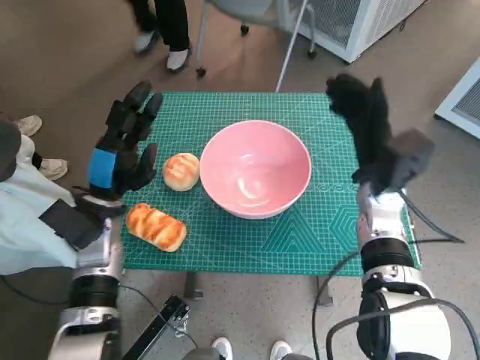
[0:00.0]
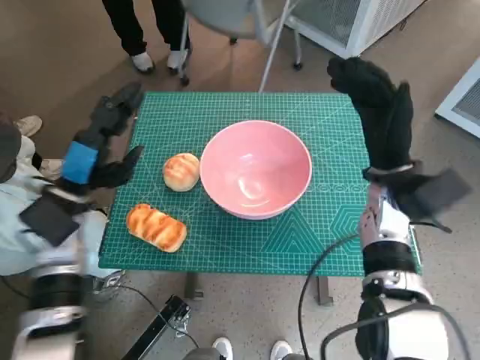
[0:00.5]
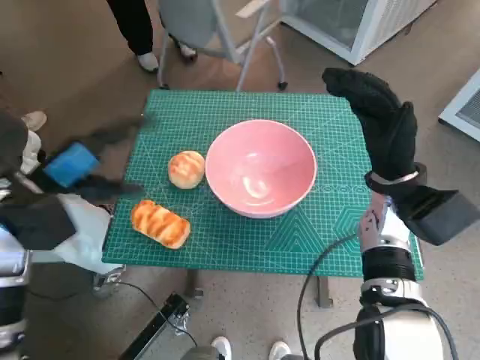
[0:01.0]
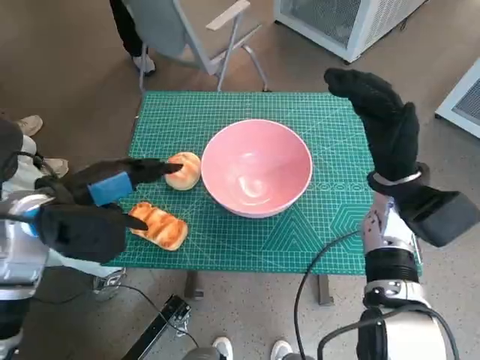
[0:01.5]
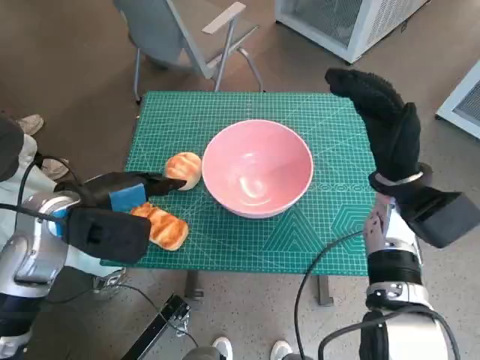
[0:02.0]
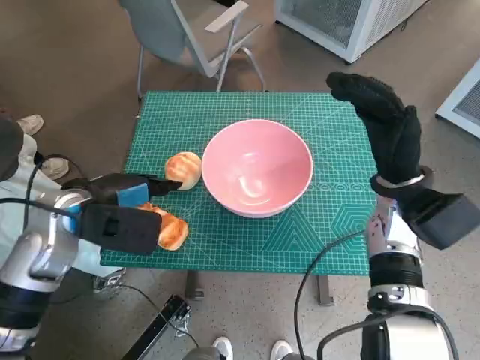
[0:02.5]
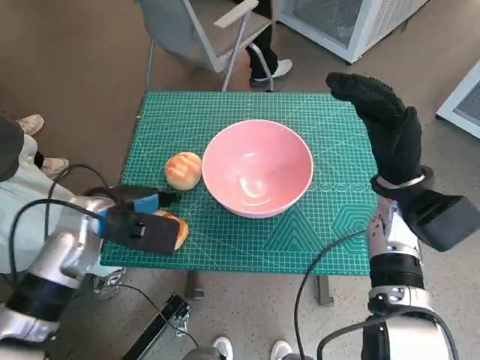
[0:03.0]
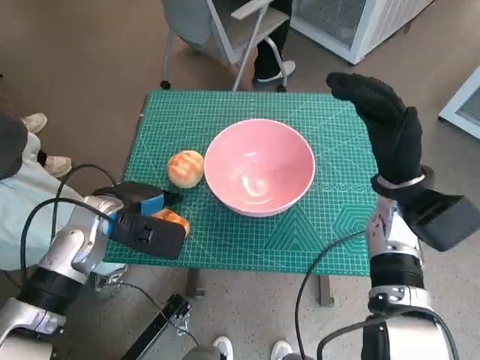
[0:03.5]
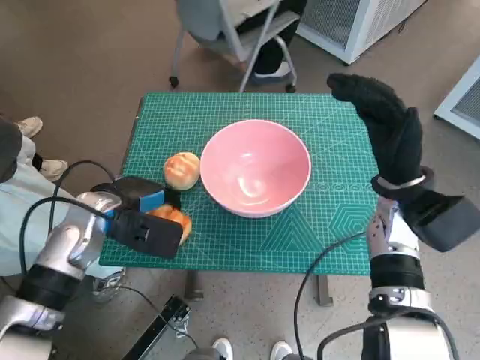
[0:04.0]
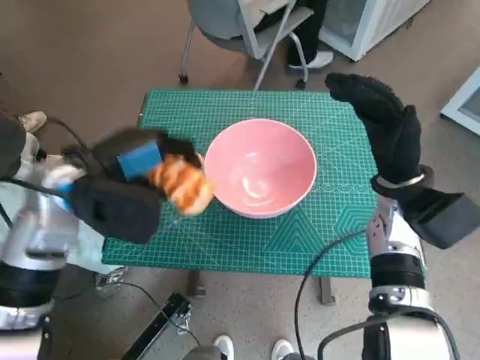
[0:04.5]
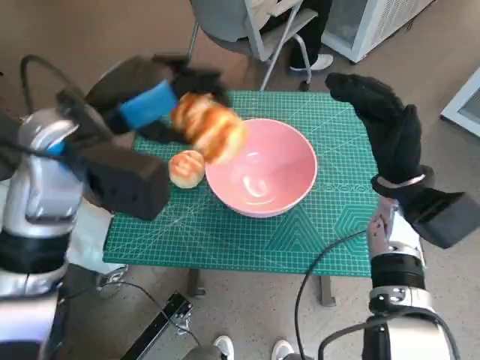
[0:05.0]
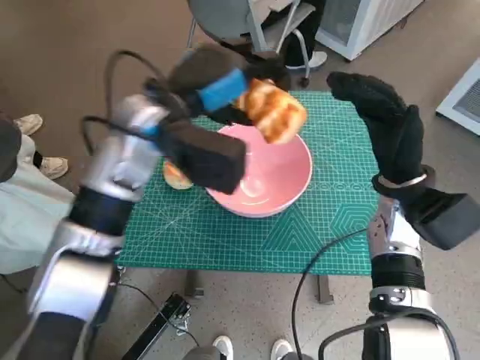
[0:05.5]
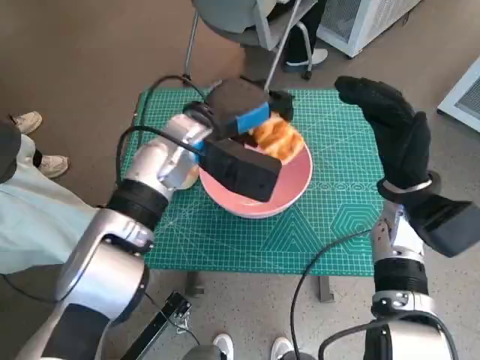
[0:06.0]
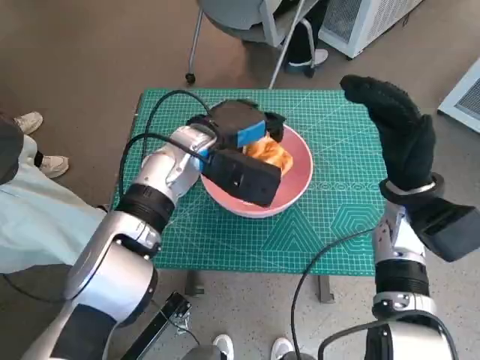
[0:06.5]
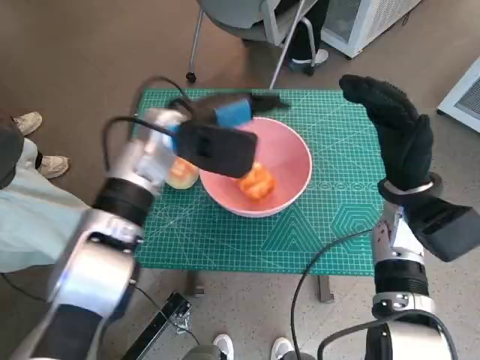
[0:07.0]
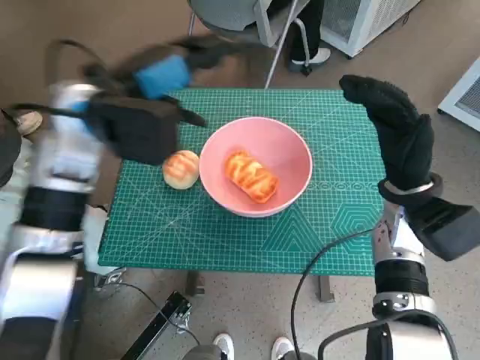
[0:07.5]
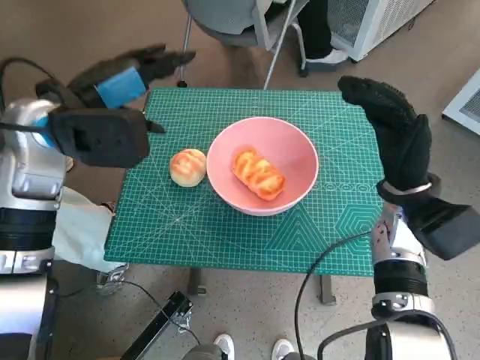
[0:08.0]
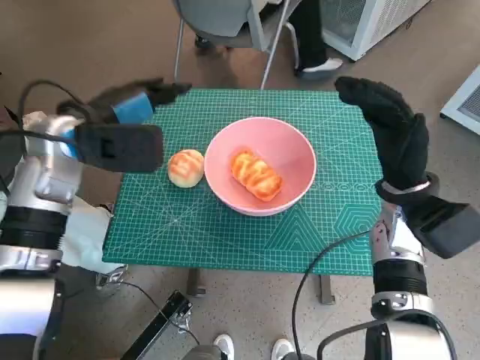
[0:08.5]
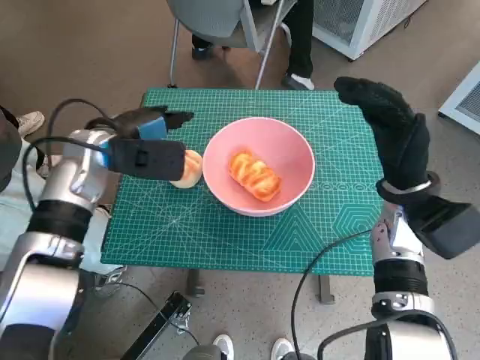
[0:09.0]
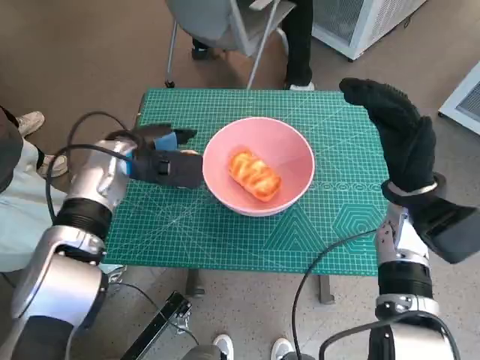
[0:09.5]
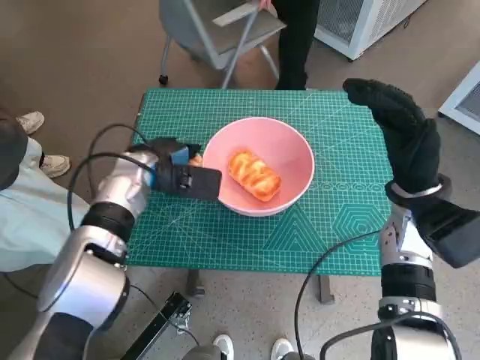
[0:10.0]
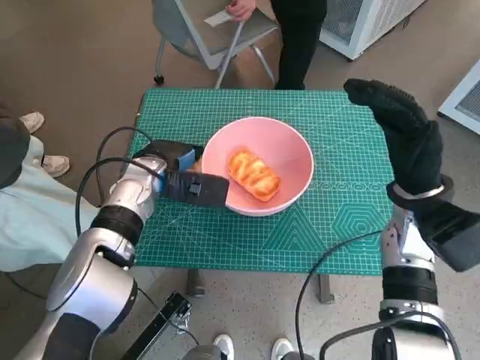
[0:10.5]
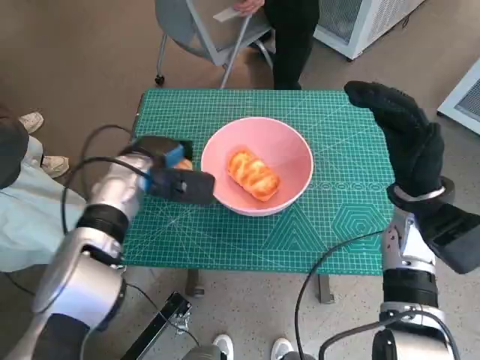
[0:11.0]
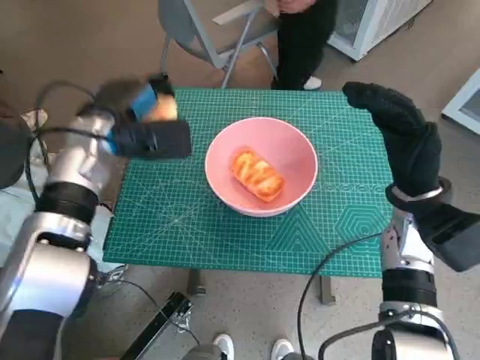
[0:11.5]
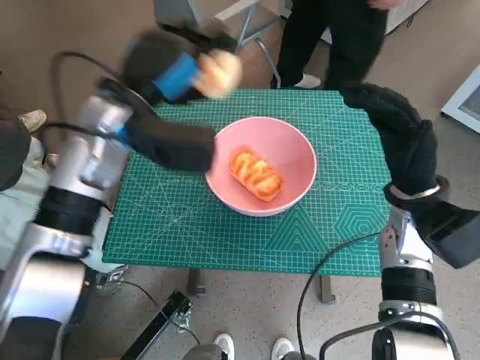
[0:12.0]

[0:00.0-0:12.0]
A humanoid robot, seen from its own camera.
Task of the whole recording: Push the bowl to the center of the table and put the bread into the bowl.
Step, 0:00.0 to 0:03.5: Grasp the long bread with left hand.
Step, 0:04.5 to 0:06.5: Place the long bread in pink bowl with left hand.
Step, 0:07.0 to 0:10.5: Grasp the round bread with left hand.
0:00.0 to 0:02.0: The left hand goes some 5 cm upward.
0:02.0 to 0:04.0: The left hand is displaced downward by about 5 cm.
0:04.0 to 0:06.0: The left hand moves to the right, upward and forward, some 15 cm.
0:06.0 to 0:08.0: The left hand heads to the left and upward, covering approximately 15 cm.
0:08.0 to 0:10.0: The left hand travels downward by some 15 cm.
0:10.0 to 0:12.0: The left hand moves upward, some 10 cm.

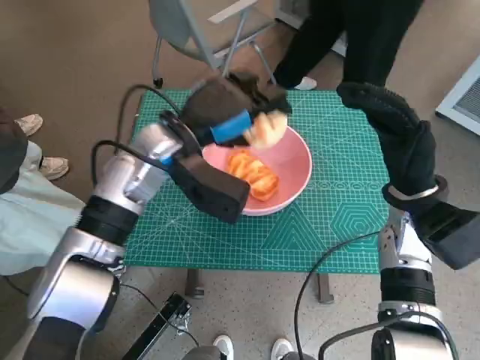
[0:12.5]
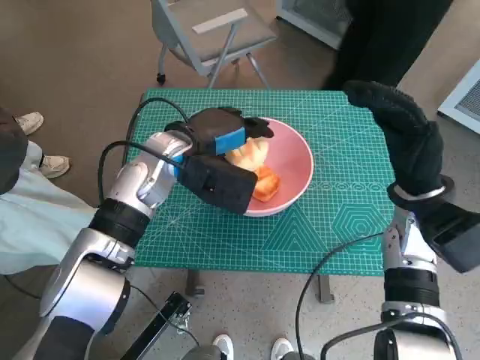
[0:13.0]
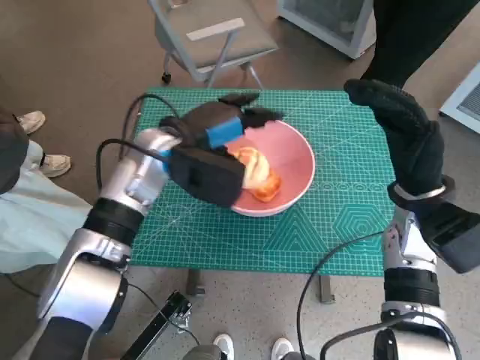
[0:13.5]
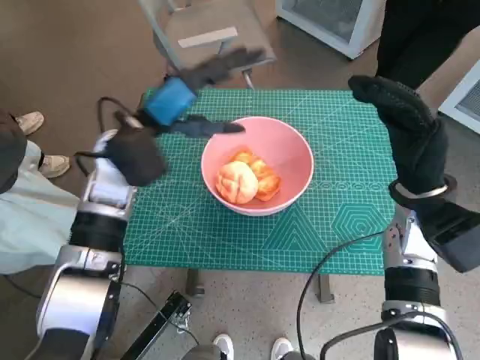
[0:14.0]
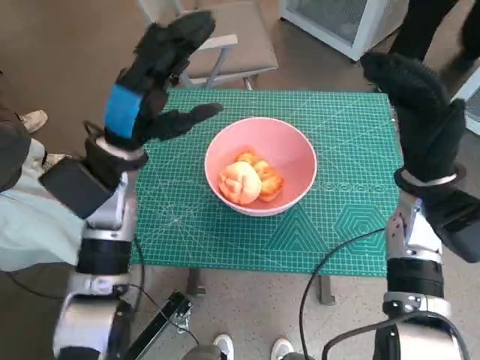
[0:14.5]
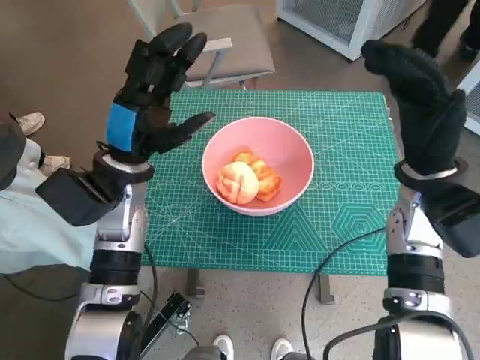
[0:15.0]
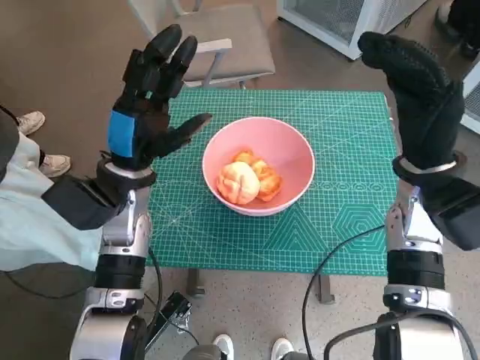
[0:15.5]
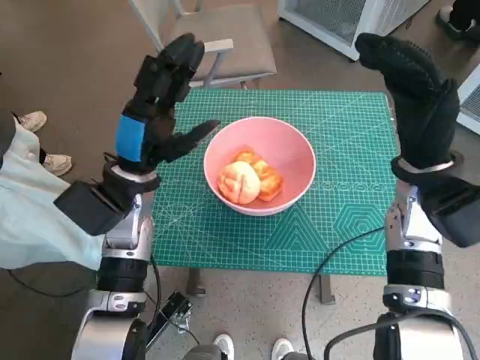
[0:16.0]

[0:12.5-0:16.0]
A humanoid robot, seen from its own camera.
Task of the whole recording: Push the bowl to the center of the table and put the bread into the bowl.
0:12.5 to 0:14.5: The left hand is displaced to the left by some 5 cm.

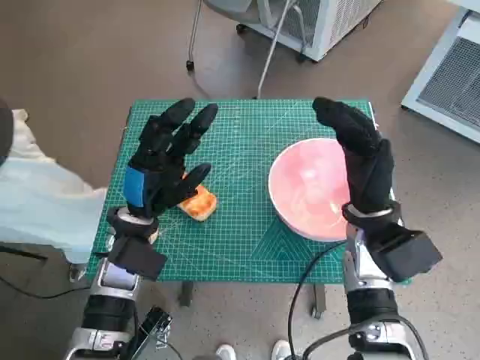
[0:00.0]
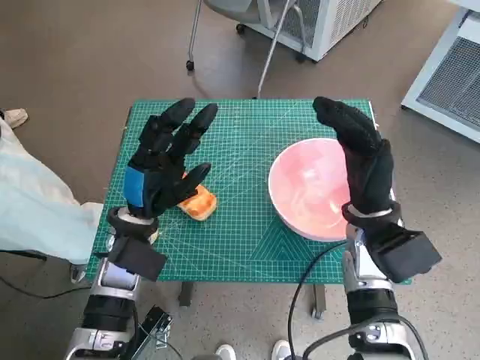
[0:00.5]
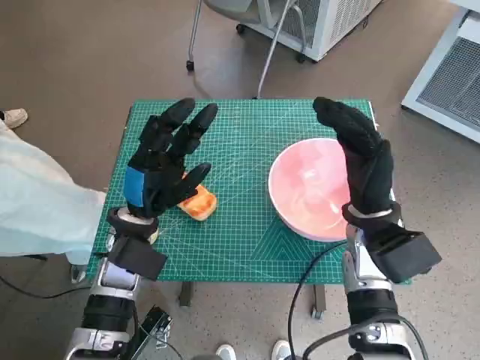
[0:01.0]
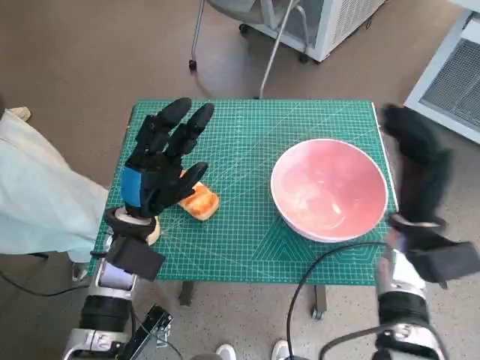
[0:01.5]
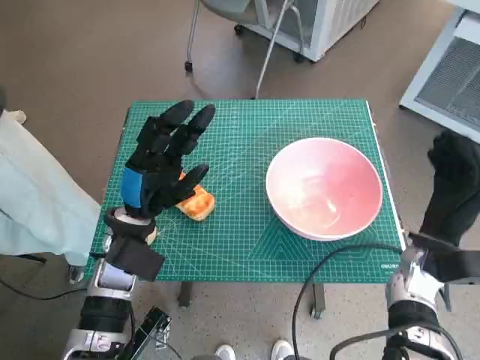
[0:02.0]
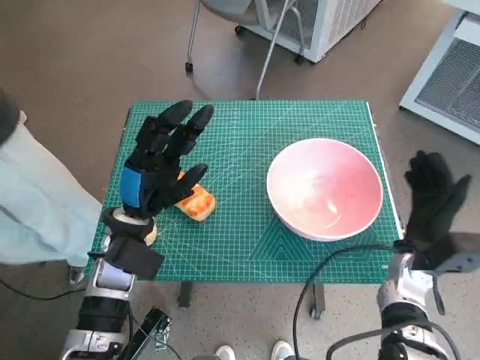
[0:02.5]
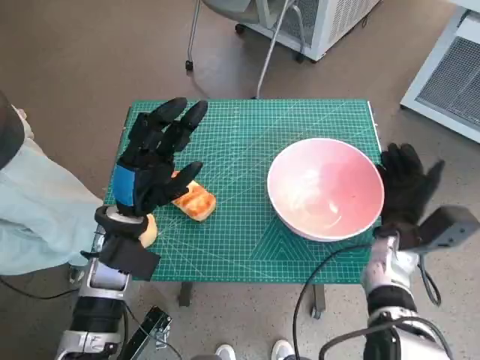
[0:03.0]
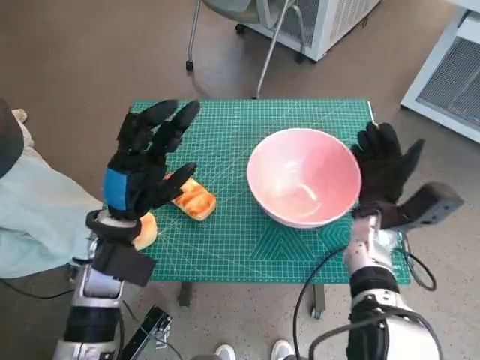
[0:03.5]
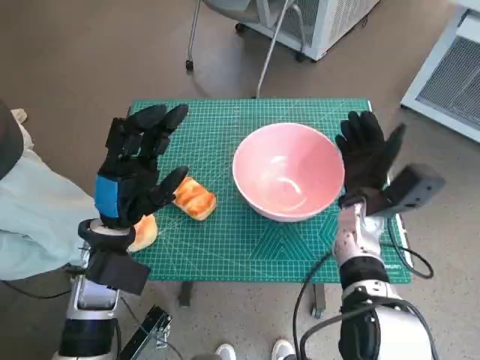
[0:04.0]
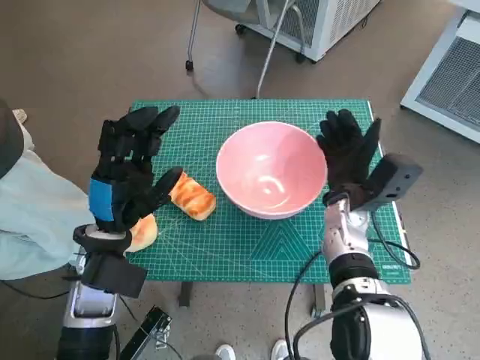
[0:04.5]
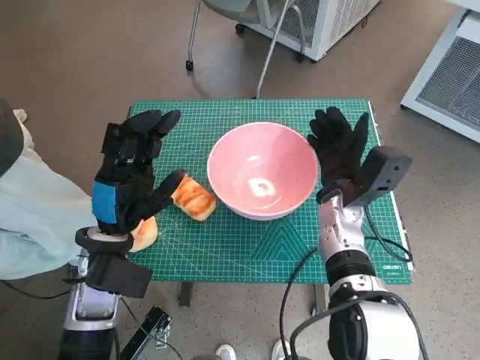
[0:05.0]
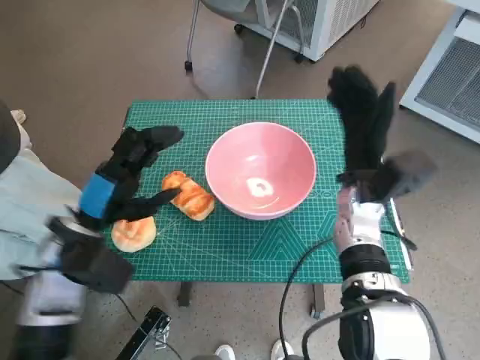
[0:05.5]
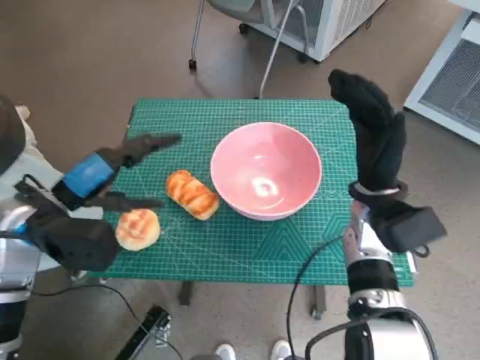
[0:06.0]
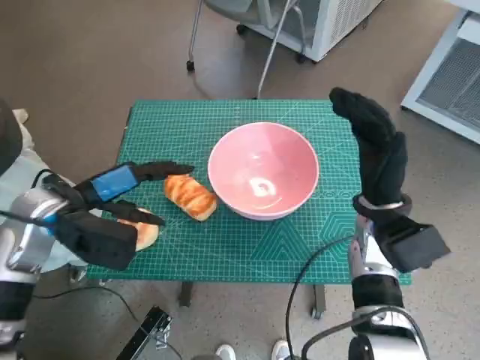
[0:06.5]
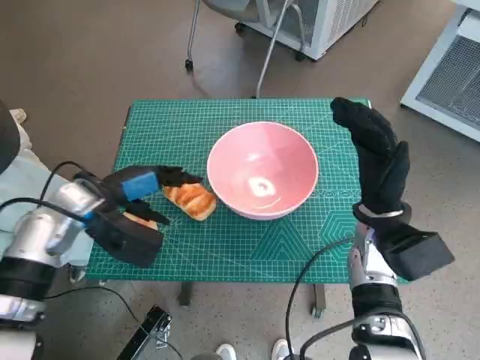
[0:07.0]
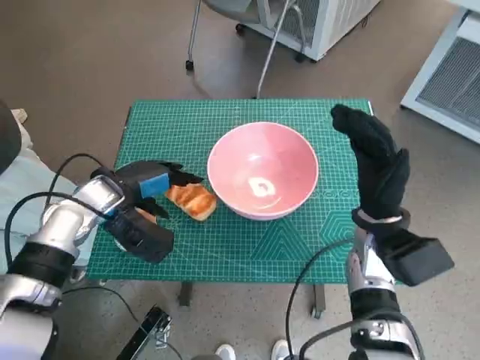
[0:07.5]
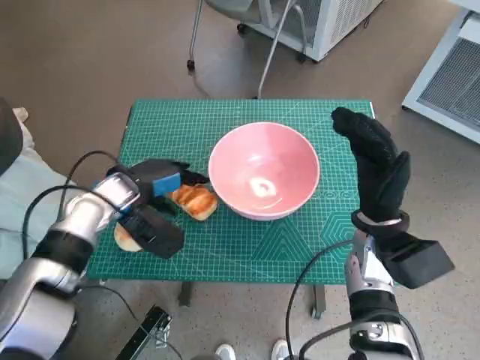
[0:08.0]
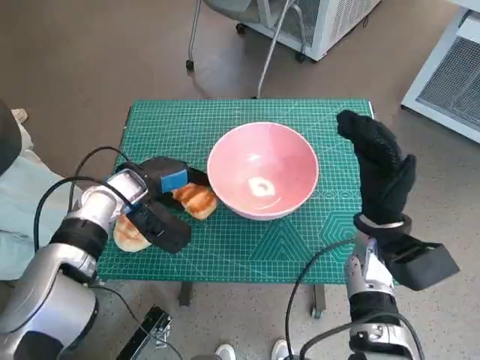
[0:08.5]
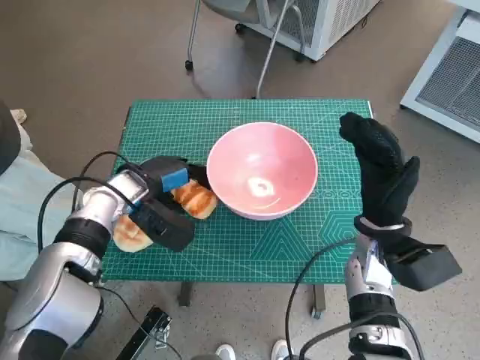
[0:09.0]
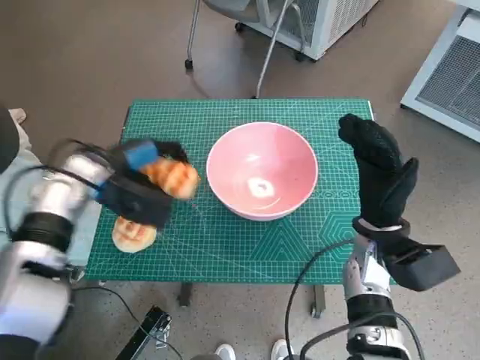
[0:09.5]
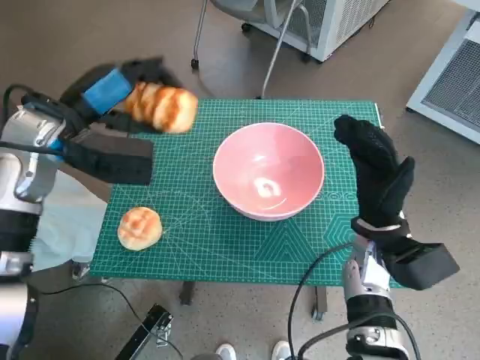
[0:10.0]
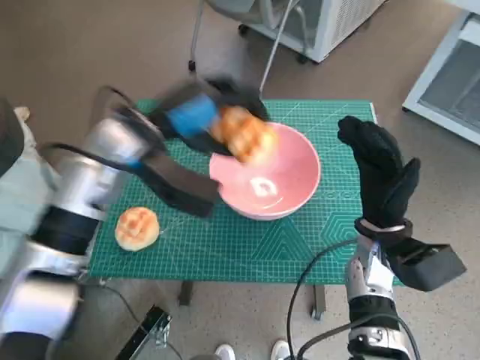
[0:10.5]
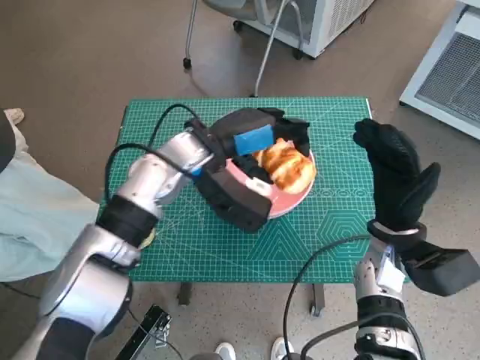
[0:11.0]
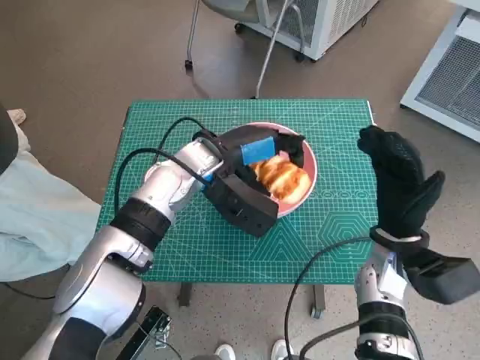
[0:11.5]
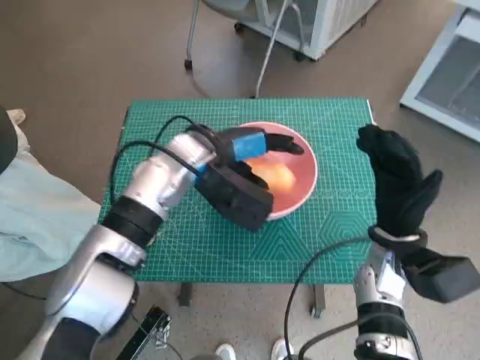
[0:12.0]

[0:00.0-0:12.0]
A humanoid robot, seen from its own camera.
Task of the whole recording: Push the bowl to the center of the table and put the bread into the bowl.
Step, 0:00.0 to 0:05.0: Move the pink bowl to the center of table with right hand.
Step, 0:05.5 to 0:08.0: Grasp the long bread with left hand.
0:02.0 to 0:04.0: The right hand is displaced to the left and forward by some 10 cm.
0:04.0 to 0:06.0: The left hand heads to the left and upward, covering roughly 10 cm. The right hand is displaced upward by about 5 cm.
0:06.0 to 0:08.0: The left hand moves forward, downward and to the right, some 10 cm.
0:08.0 to 0:10.0: The left hand is displaced upward by some 10 cm.
0:10.0 to 0:12.0: The left hand shifts some 15 cm to the right.
